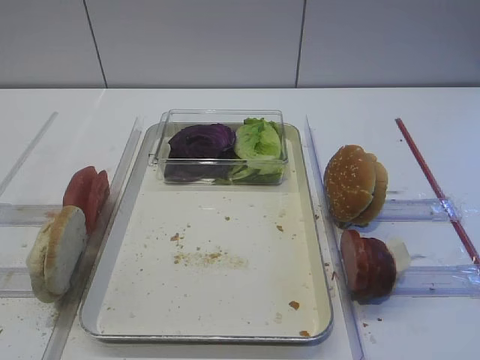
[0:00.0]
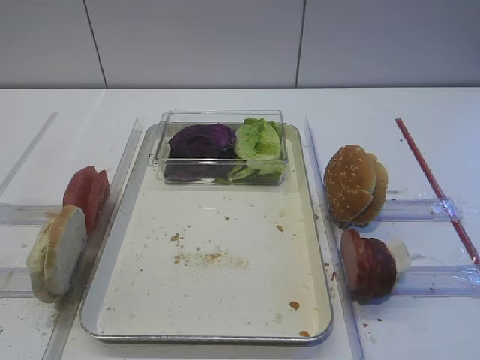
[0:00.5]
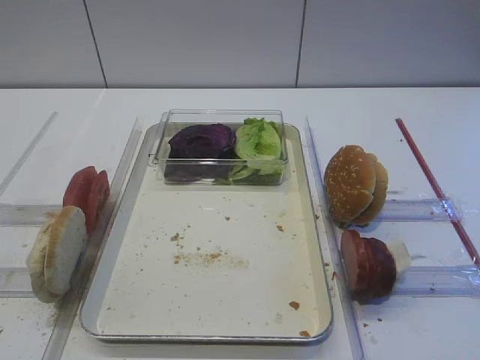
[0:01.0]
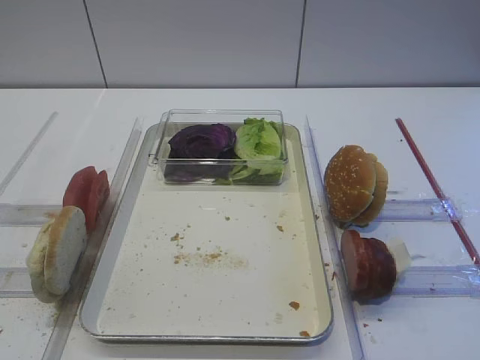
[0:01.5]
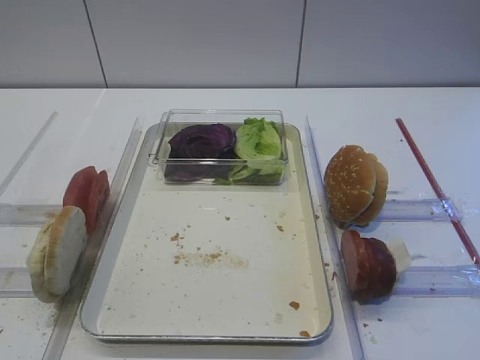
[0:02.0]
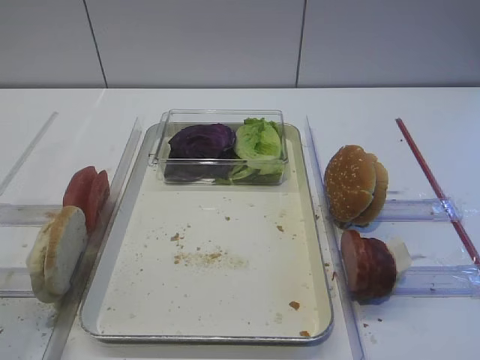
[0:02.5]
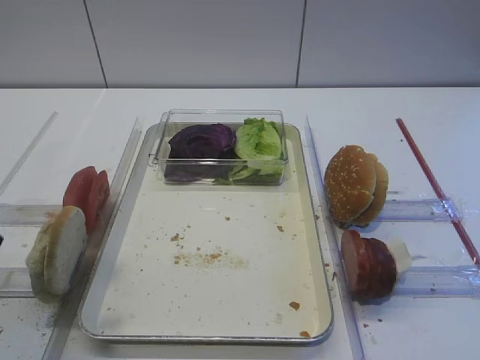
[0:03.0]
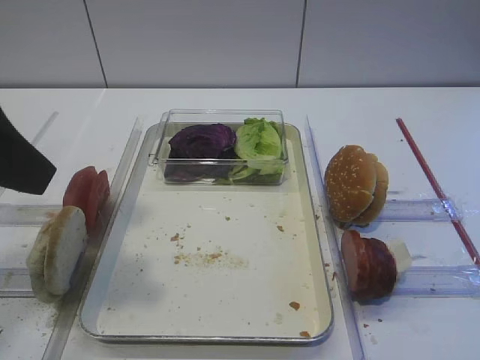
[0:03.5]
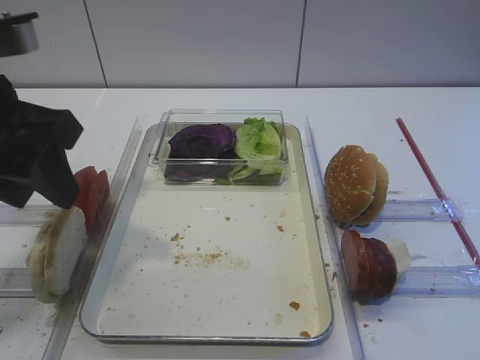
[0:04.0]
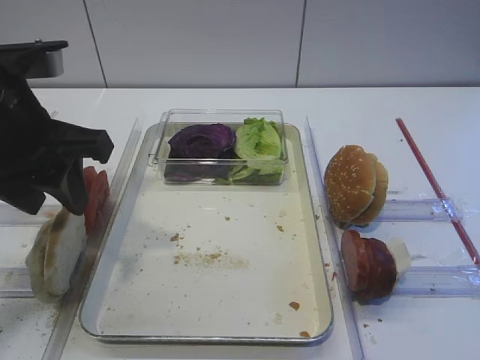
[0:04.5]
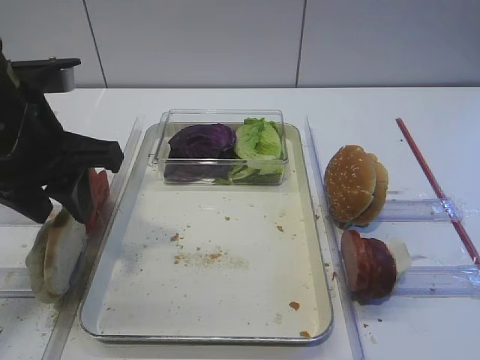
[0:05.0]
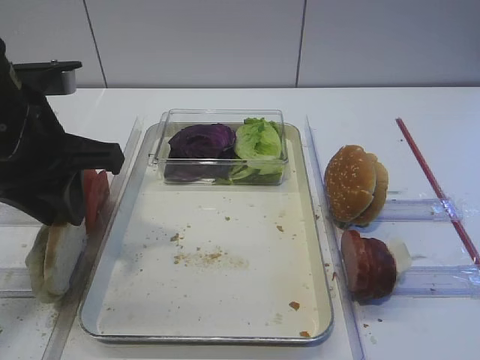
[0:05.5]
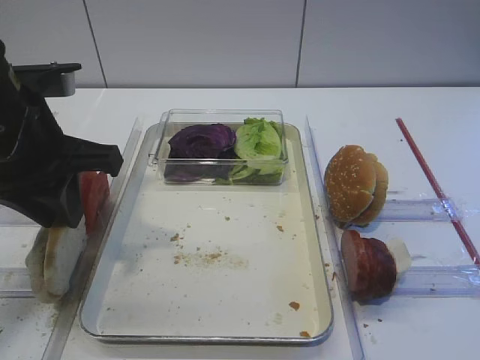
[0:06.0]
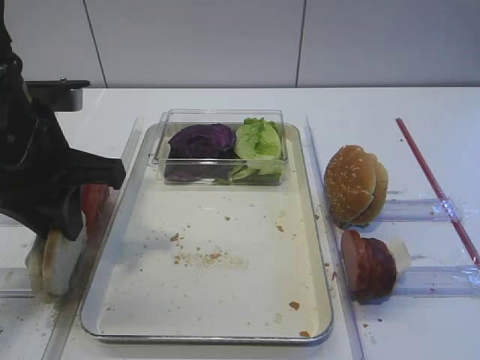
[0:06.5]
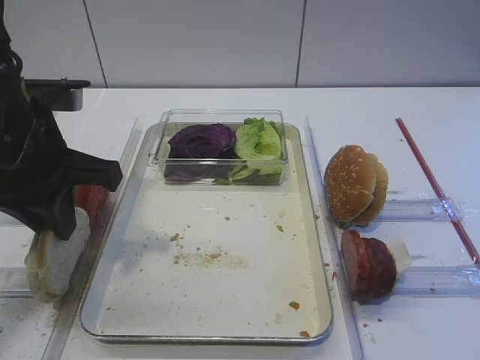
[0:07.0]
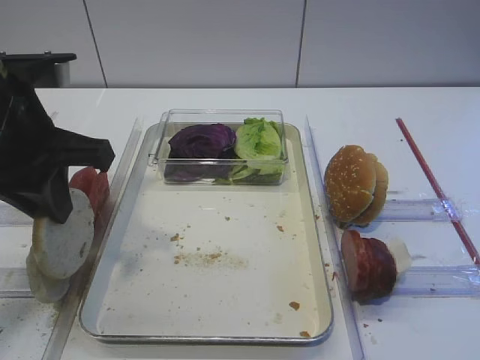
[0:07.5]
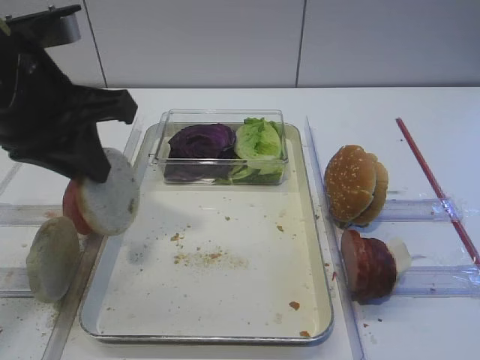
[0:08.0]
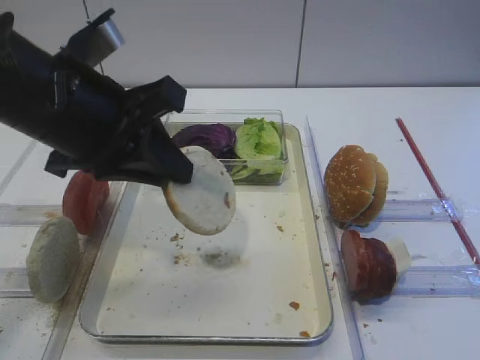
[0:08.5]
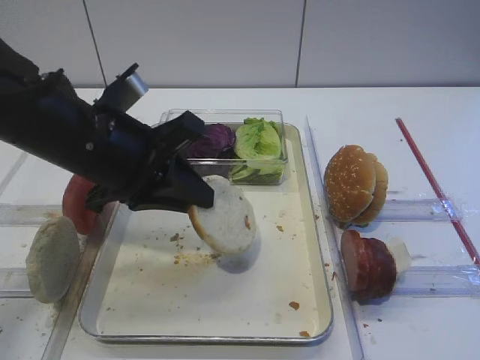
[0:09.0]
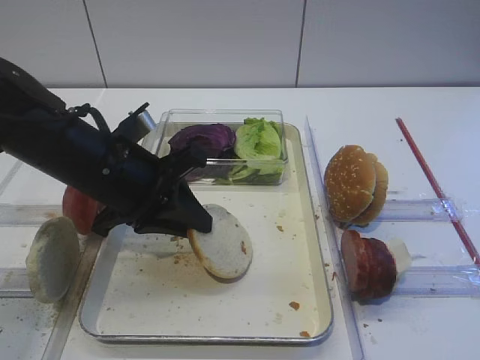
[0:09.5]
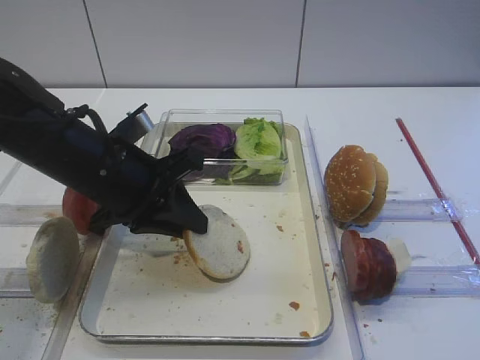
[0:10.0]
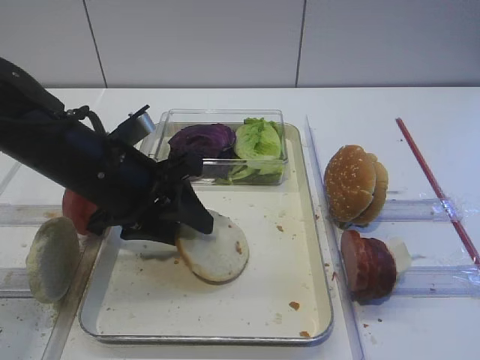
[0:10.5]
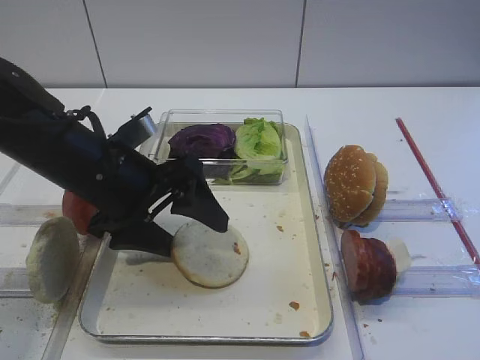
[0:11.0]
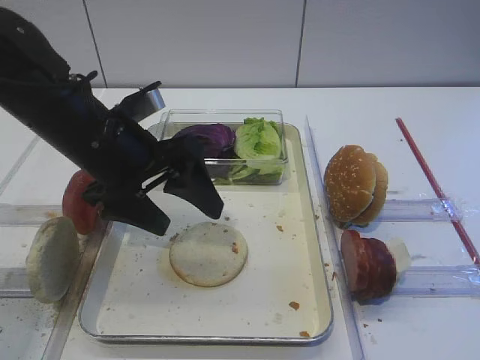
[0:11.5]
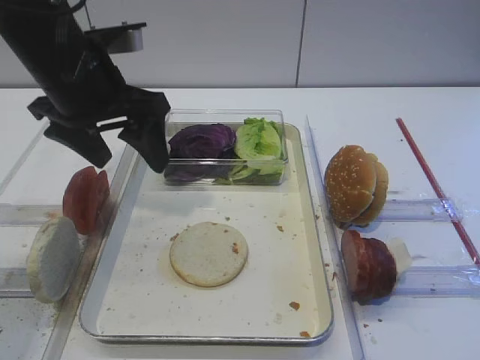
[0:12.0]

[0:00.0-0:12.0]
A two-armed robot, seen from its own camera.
Step, 0:00.0 to 0:07.0: Pick up the bread slice with the left gripper.
Step, 0:07.5 to 0:11.0: Place the bread slice on the tray with the left gripper.
0:02.0 to 0:04.0: The left gripper is displaced forward by some 20 cm.
0:04.0 to 0:06.0: The left gripper shifts by about 5 cm, and closes its fingers.
0:06.0 to 0:08.0: The grippers stay close to where they were, moving slightly.
0:08.0 to 0:10.0: The left gripper heads downward, covering approximately 10 cm.
0:10.0 to 0:12.0: The left gripper is displaced upward by approximately 10 cm, and opens up.

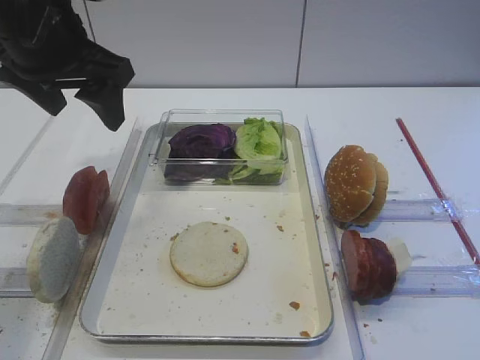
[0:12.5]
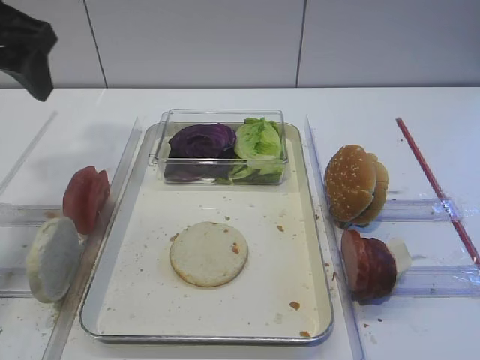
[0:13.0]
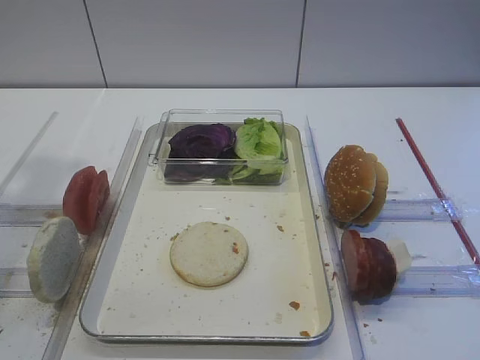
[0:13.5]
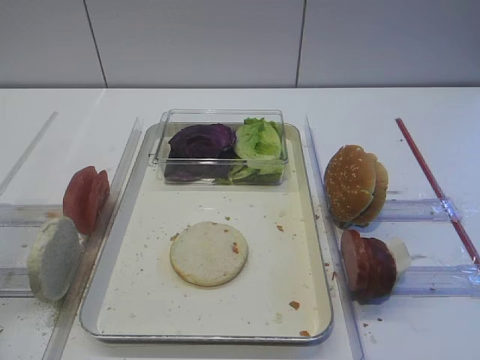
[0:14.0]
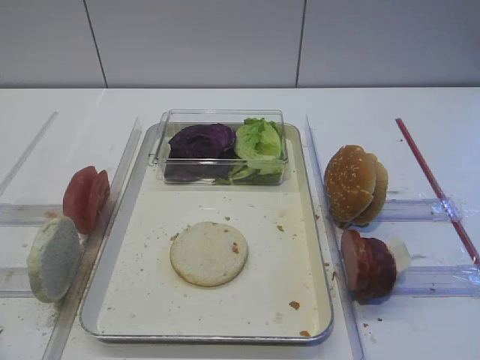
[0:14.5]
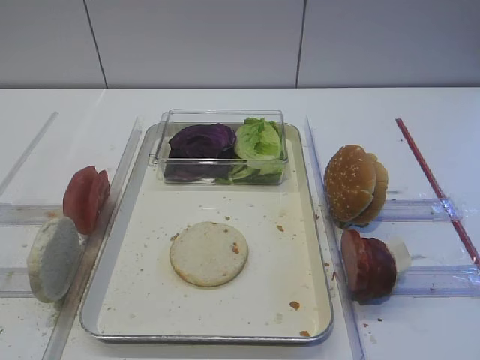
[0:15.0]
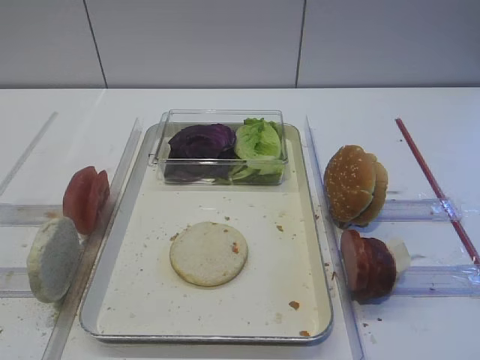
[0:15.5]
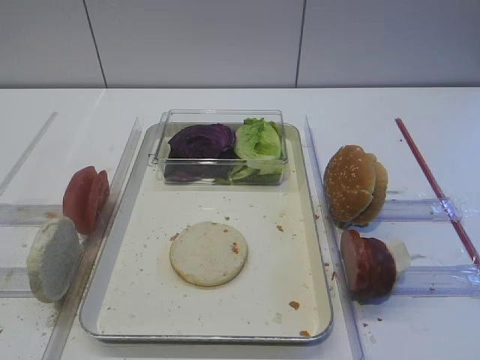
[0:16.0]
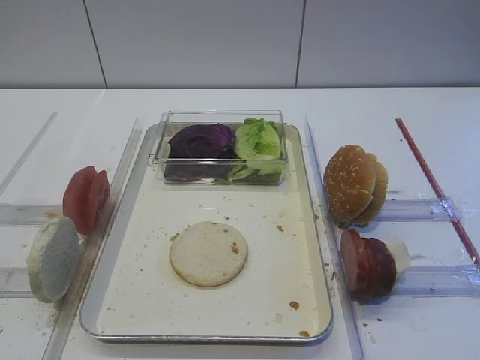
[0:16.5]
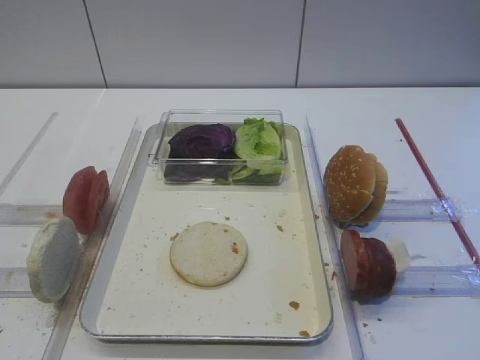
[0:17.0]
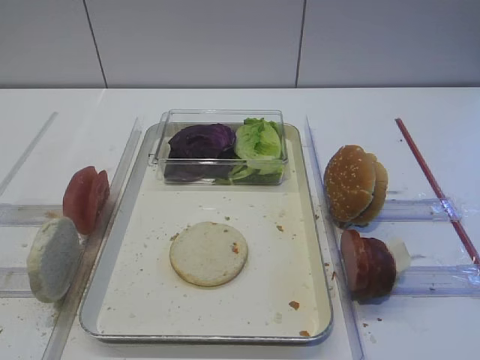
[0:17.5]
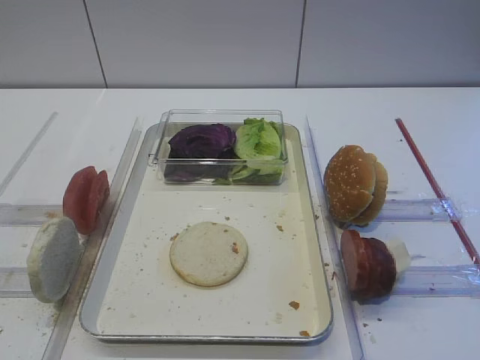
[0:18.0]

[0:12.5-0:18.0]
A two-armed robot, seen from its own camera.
0:12.5 to 0:14.5: The left gripper moves backward, approximately 30 cm.
0:16.0 to 0:18.0: Neither gripper changes place.

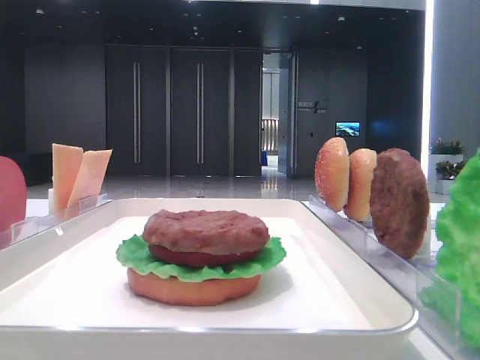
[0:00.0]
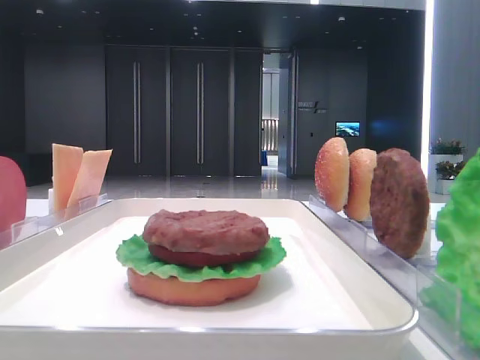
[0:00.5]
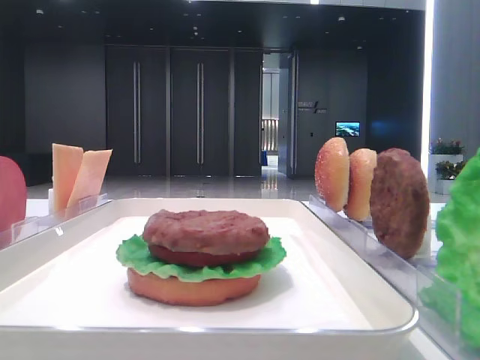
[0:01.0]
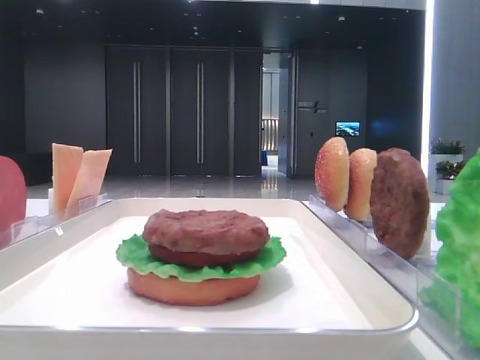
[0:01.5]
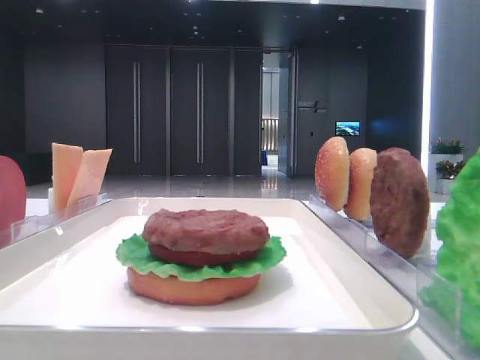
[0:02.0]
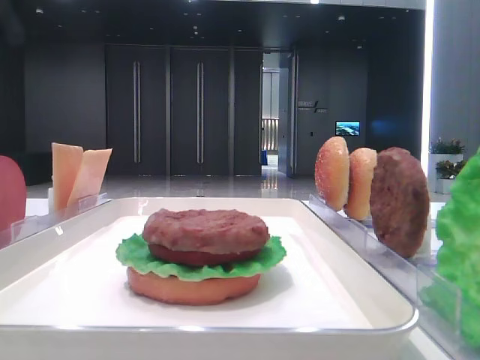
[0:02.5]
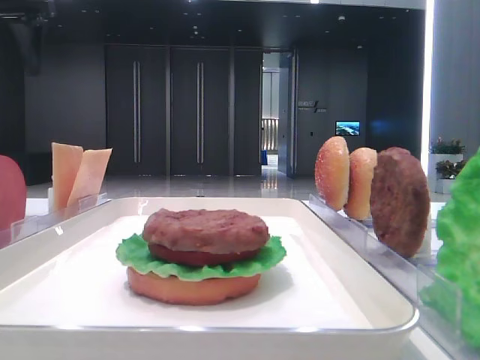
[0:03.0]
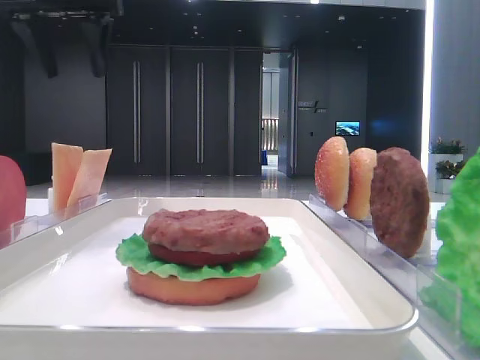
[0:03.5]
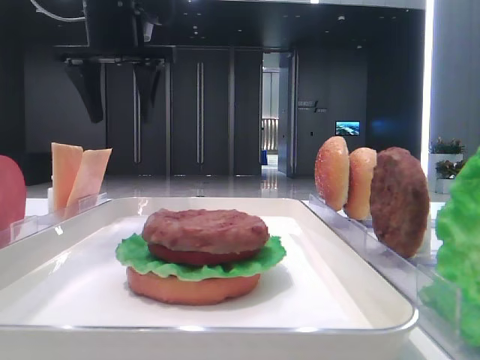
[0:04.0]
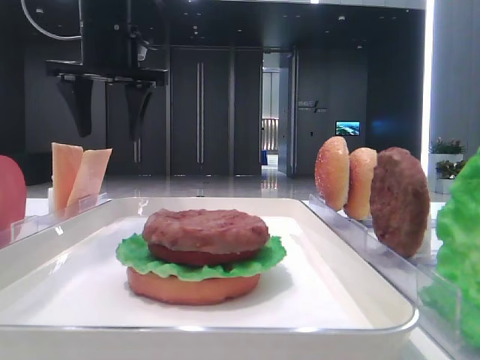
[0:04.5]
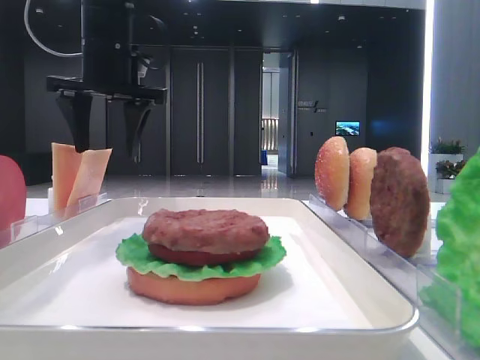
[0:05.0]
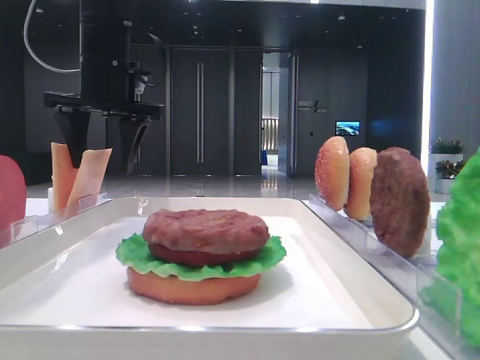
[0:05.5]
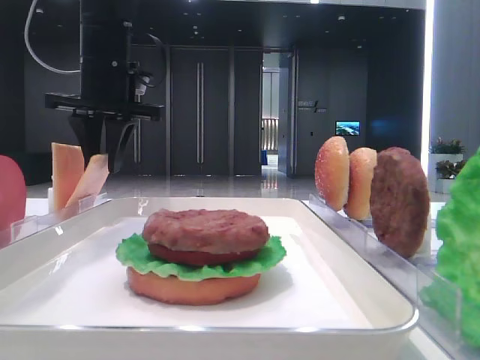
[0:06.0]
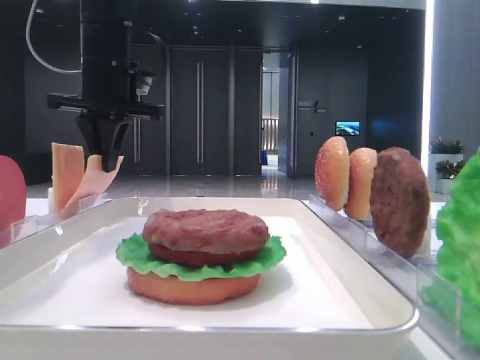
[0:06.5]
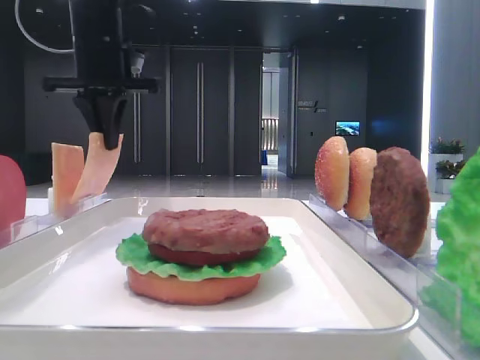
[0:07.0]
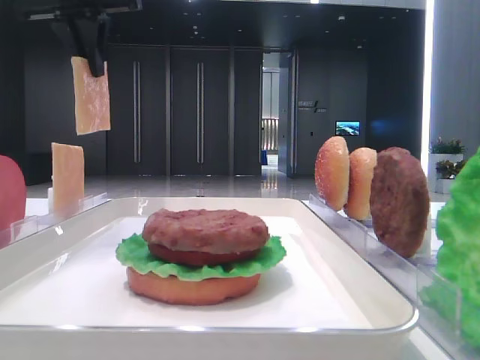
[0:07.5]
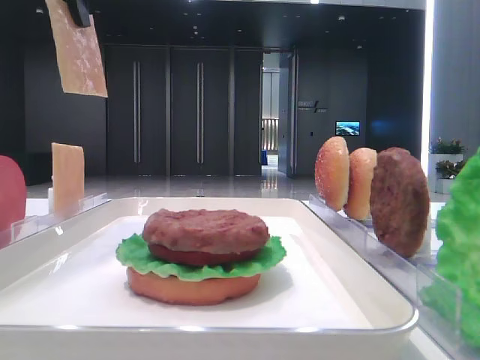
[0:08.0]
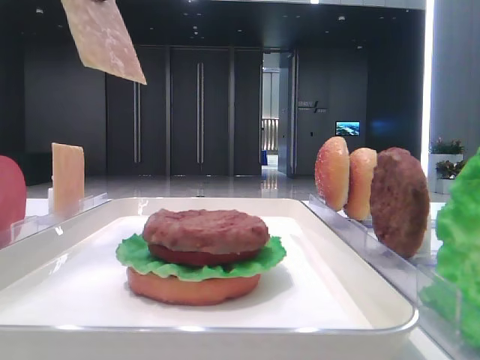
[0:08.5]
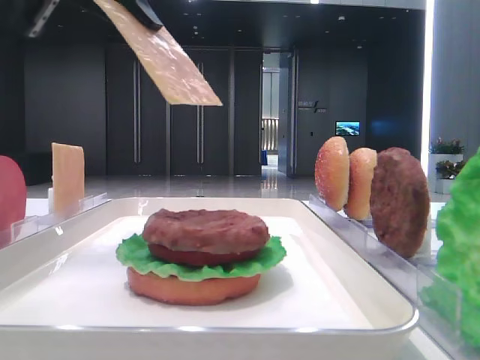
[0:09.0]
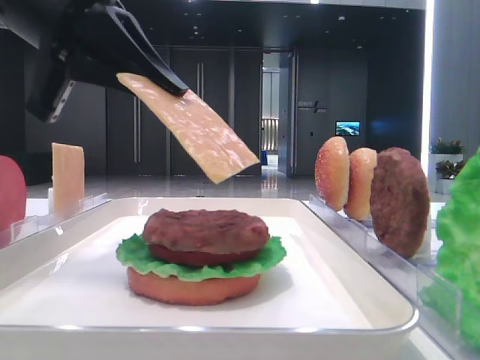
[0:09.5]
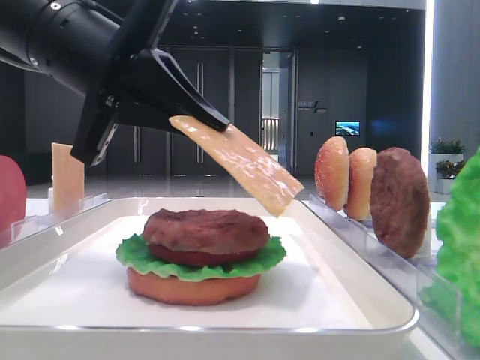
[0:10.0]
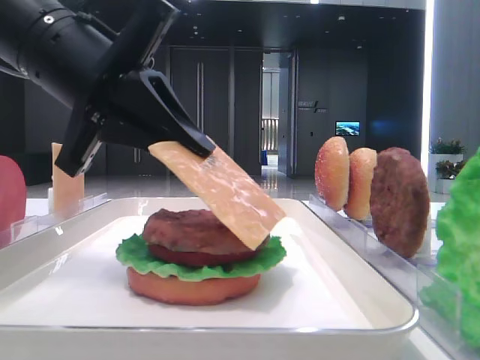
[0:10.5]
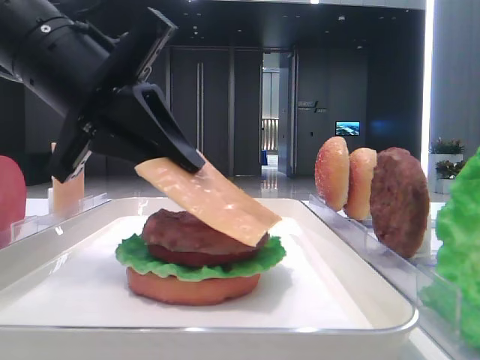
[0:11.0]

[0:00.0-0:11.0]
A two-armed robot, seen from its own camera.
Step, 0:00.0 to 0:06.0: Pick up the cheese slice with the left hand.
0:02.0 to 0:03.5: The left gripper goes roughly 20 cm forward and to the right.
0:03.5 to 0:05.5: The left gripper goes some 15 cm downward and to the right.
0:05.5 to 0:07.5: The left gripper moves upward, some 10 cm, and closes up.
0:07.5 to 0:09.0: The left gripper heads backward, covering some 15 cm.
0:09.0 to 0:11.0: The left gripper travels downward by approximately 10 cm.
